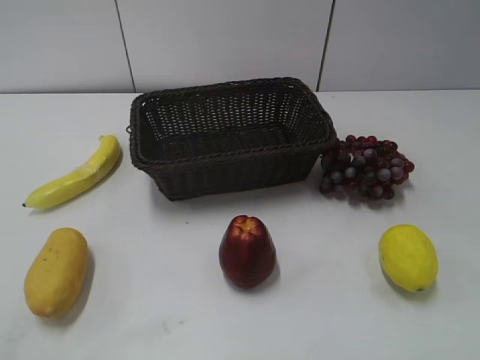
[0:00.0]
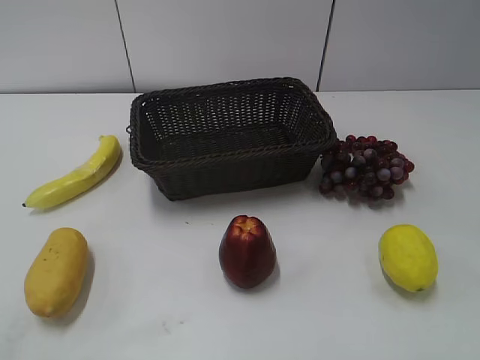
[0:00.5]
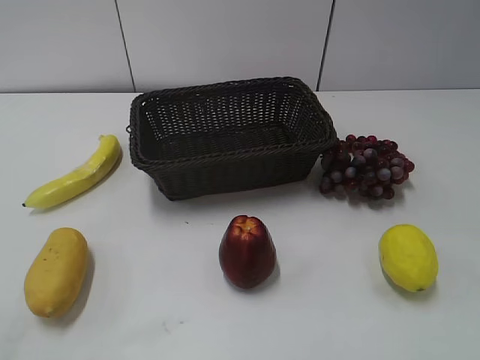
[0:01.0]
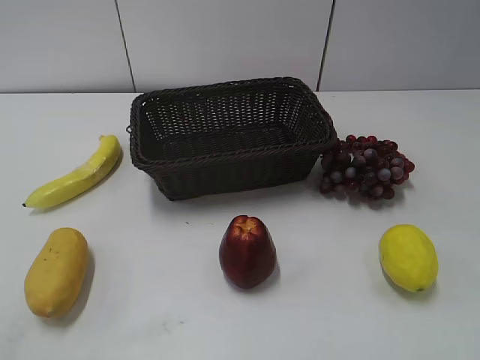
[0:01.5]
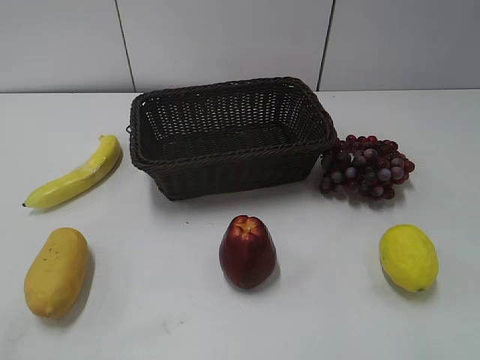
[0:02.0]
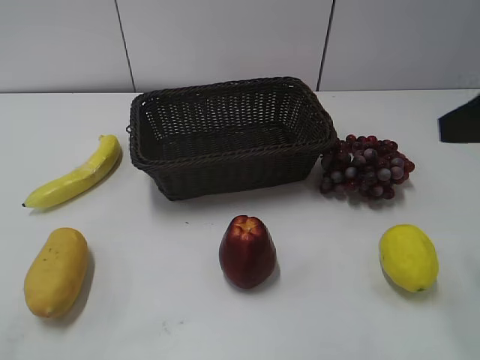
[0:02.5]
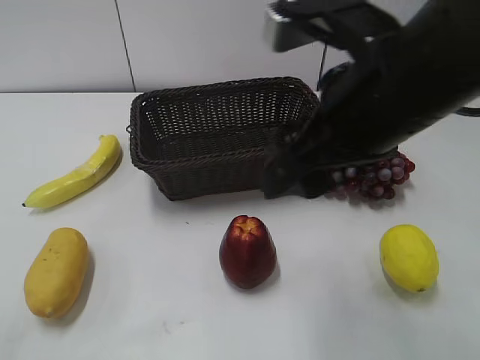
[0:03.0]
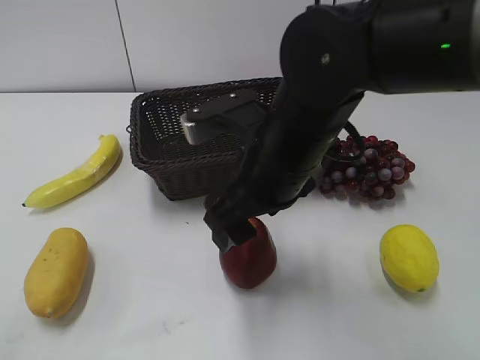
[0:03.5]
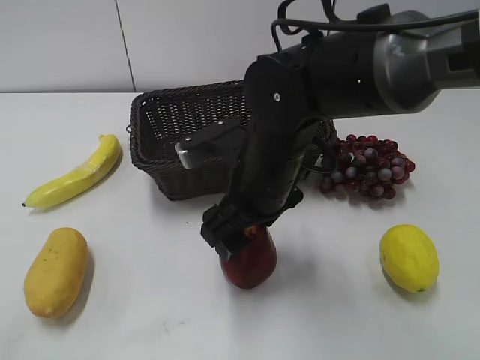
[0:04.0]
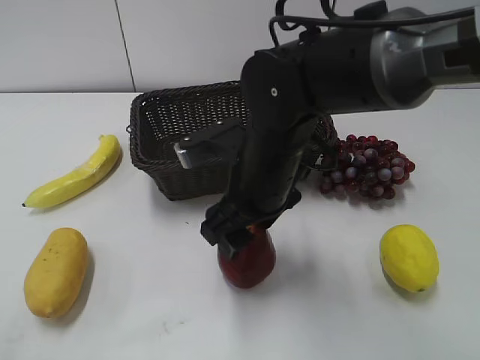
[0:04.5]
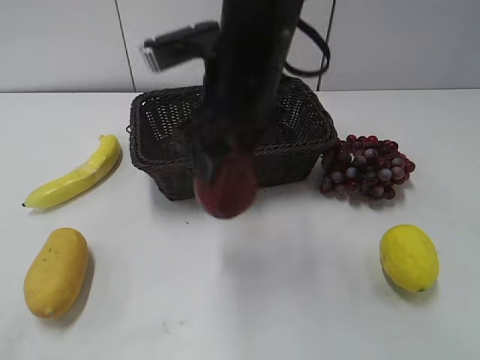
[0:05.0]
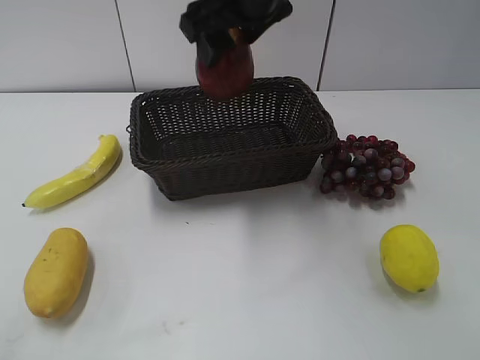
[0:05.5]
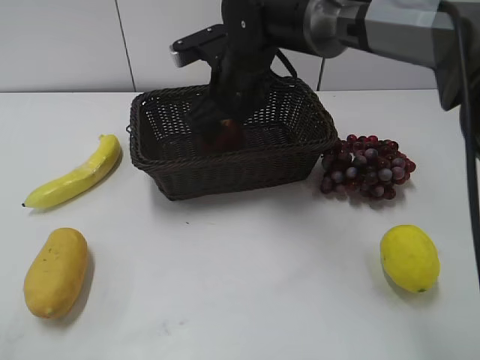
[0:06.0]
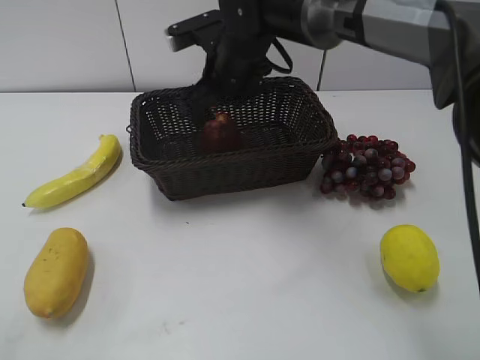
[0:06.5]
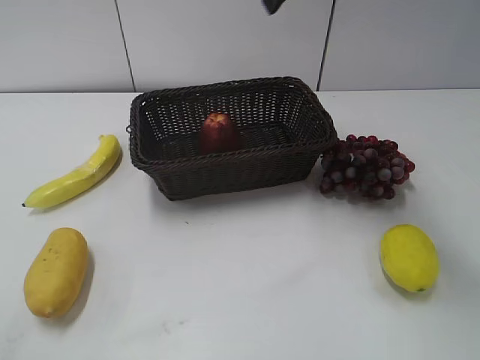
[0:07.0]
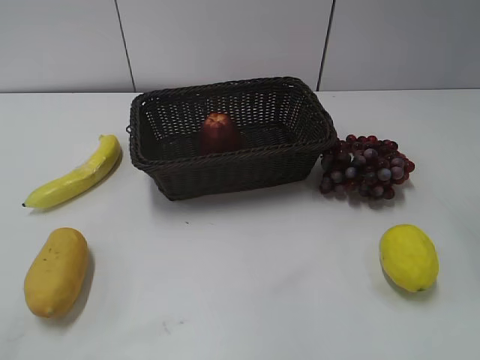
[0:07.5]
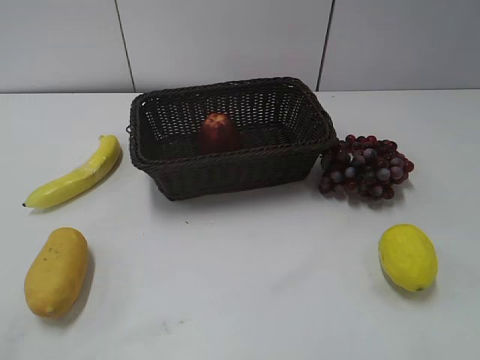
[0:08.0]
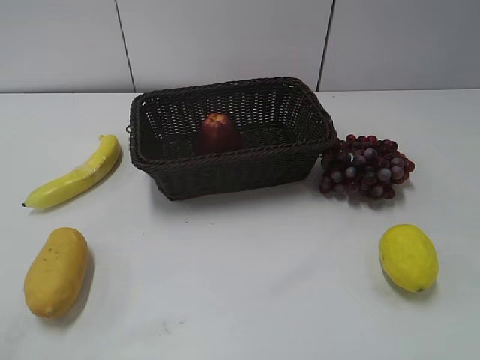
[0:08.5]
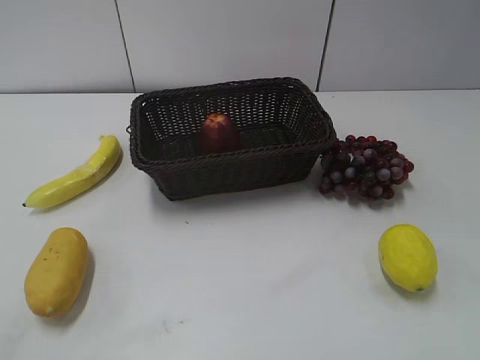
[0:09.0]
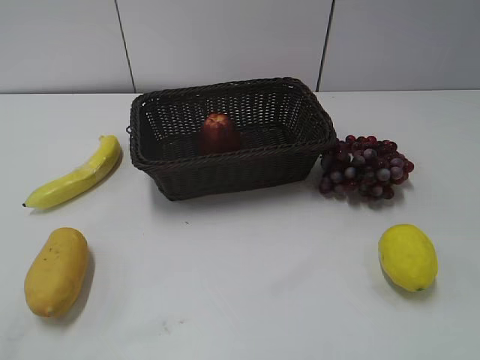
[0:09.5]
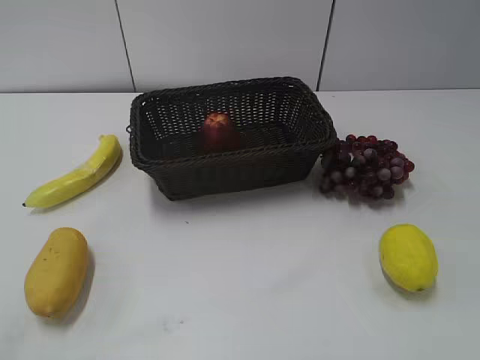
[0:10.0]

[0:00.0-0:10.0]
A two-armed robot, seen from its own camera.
Step, 0:02.5 to 0:04.0: Grasp the apple with right gripper.
Step, 0:04.5 to 0:06.0: Place the apple in the basket with right gripper.
0:02.0 to 0:04.0: The right gripper goes roughly 35 cm to the left, forward and downward.
0:04.0 to 0:06.0: The right gripper shifts approximately 15 cm forward, travels upward and back again, roughly 15 cm each way, and closes its fingers.
0:06.0 to 0:08.0: The right gripper goes roughly 50 cm backward, to the right and upward, and opens, then closes again.

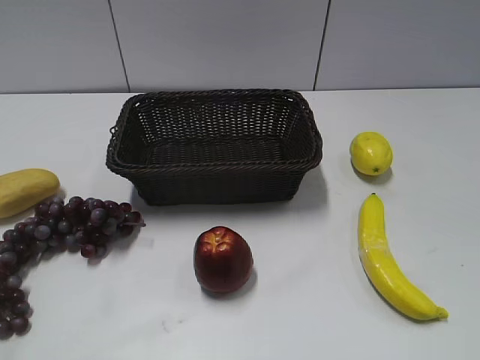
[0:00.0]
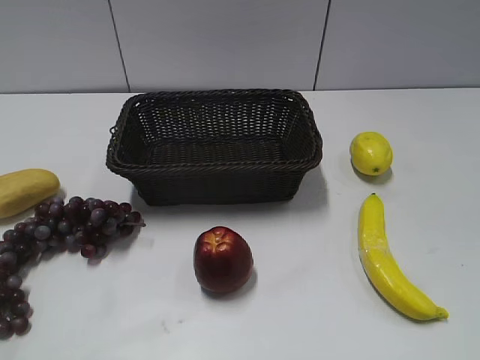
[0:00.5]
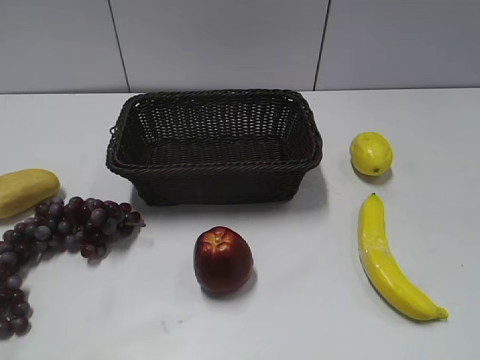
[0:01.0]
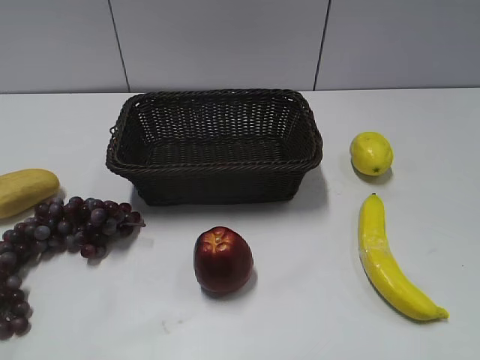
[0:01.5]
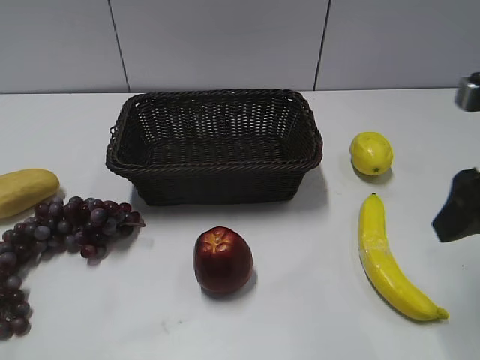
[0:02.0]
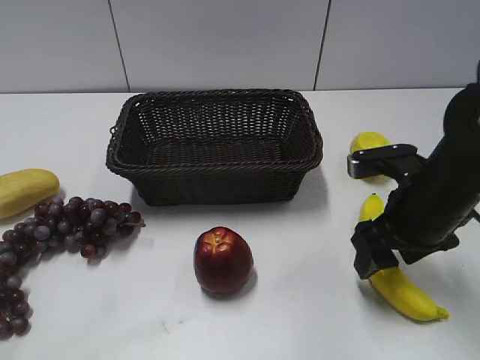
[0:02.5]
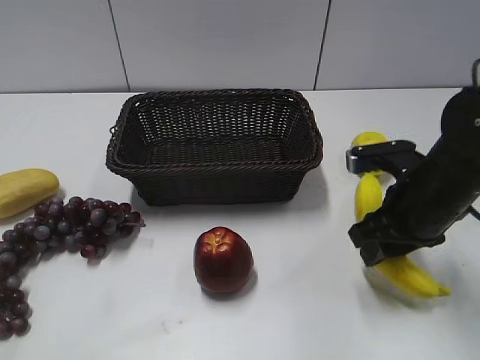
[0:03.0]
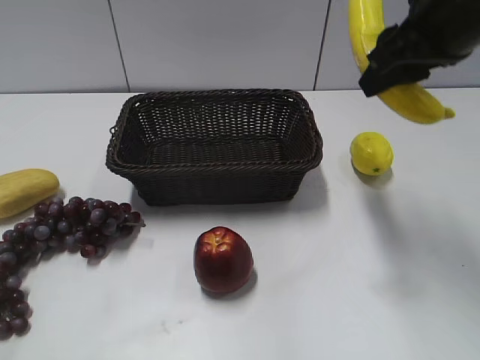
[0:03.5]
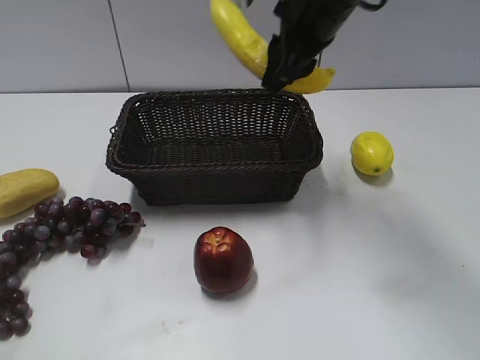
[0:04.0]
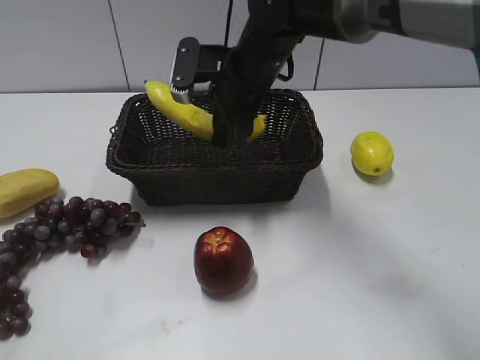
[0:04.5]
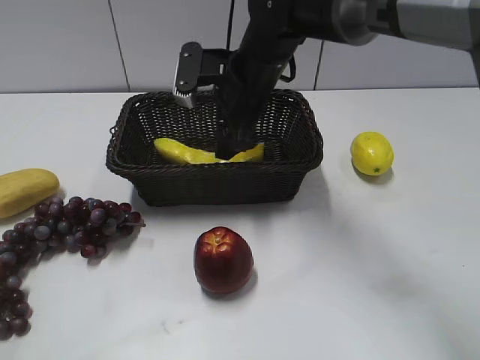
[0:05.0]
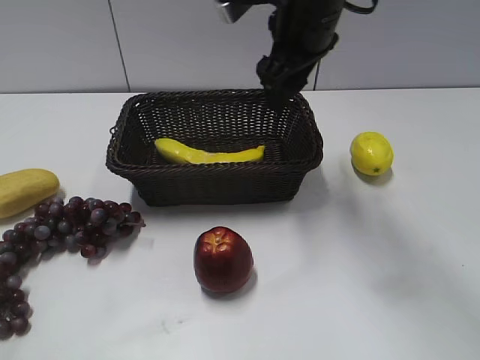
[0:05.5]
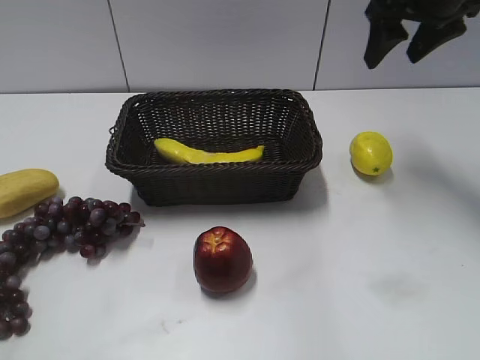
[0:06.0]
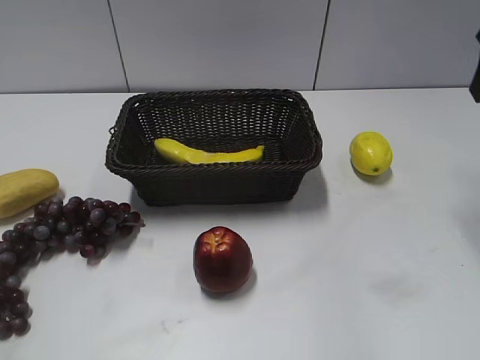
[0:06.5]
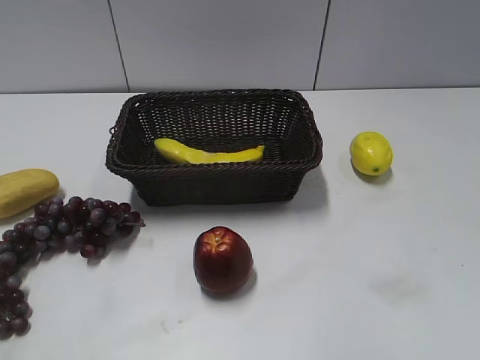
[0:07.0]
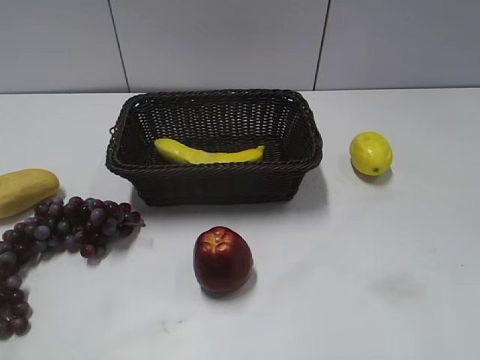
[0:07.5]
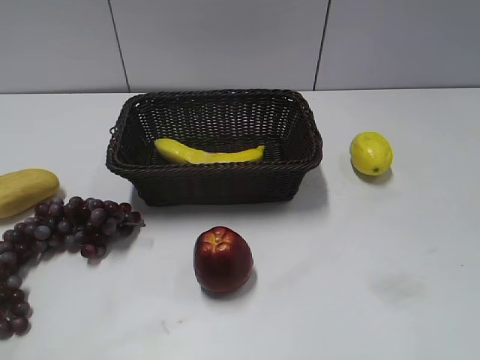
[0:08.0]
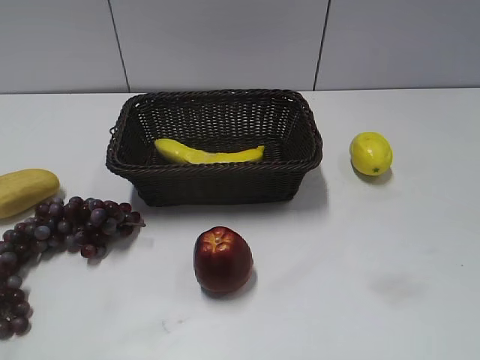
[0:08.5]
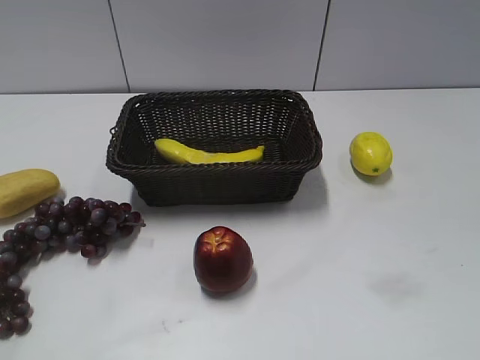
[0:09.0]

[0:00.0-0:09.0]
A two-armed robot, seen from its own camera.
Step, 0:02.0 to 0:02.5: Grasp the banana with right gripper.
Step, 0:03.0 to 0:05.0: Place the banana in the basket with right gripper.
0:02.0 to 0:04.5: The right gripper heads to the left and forward, covering approximately 30 cm, and closes.
0:04.5 to 0:07.0: The right gripper heads to the right, backward and upward, covering some 35 cm, and opens its fingers.
